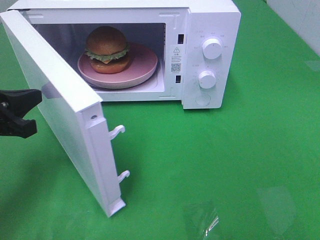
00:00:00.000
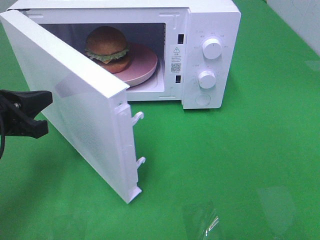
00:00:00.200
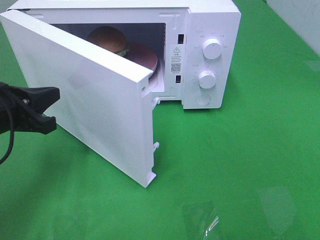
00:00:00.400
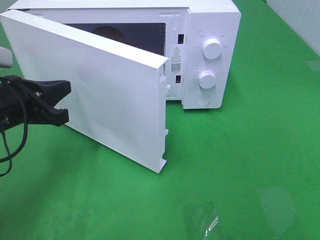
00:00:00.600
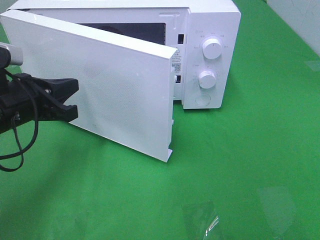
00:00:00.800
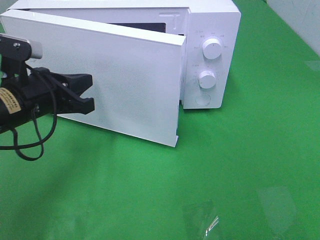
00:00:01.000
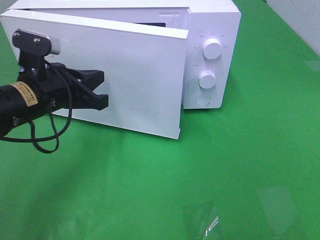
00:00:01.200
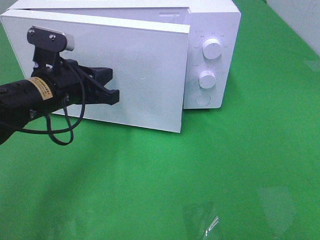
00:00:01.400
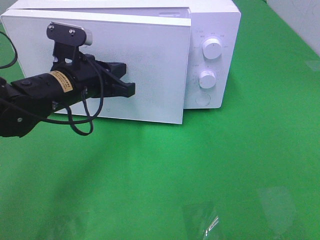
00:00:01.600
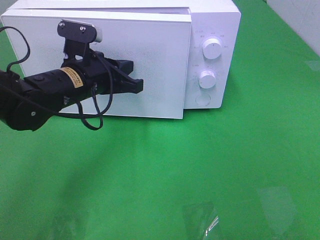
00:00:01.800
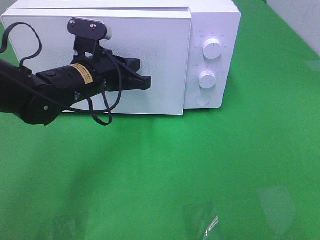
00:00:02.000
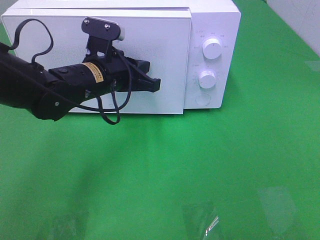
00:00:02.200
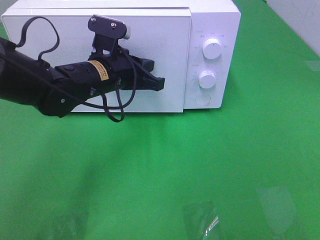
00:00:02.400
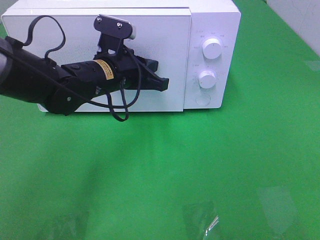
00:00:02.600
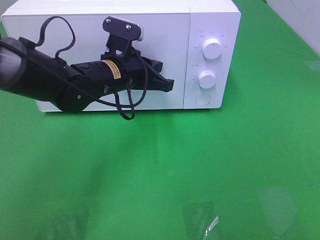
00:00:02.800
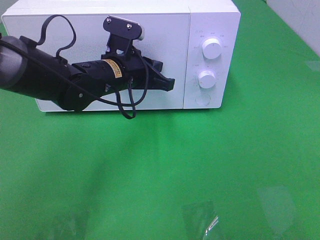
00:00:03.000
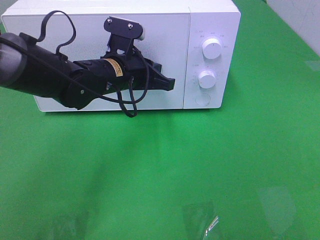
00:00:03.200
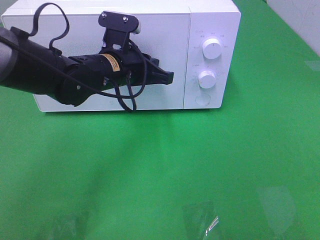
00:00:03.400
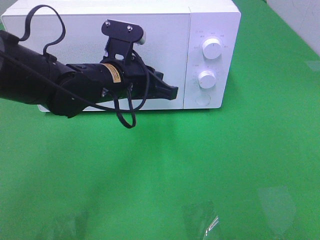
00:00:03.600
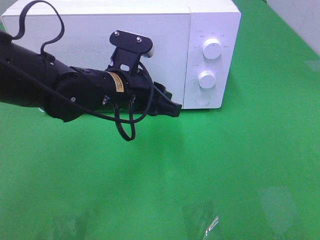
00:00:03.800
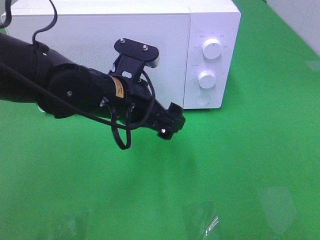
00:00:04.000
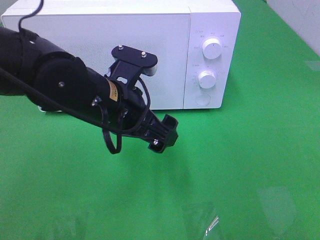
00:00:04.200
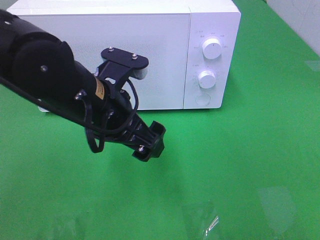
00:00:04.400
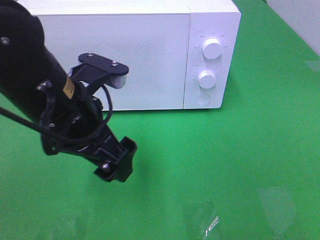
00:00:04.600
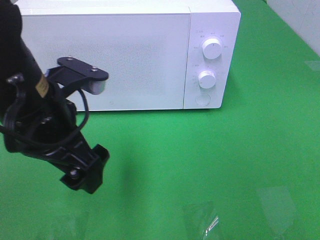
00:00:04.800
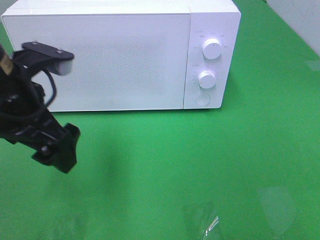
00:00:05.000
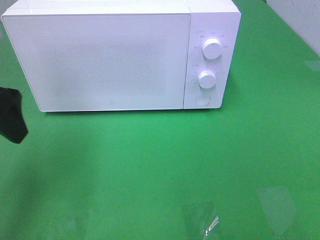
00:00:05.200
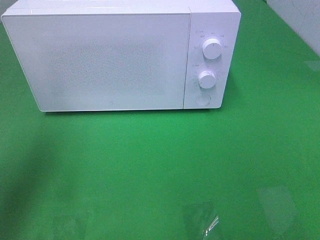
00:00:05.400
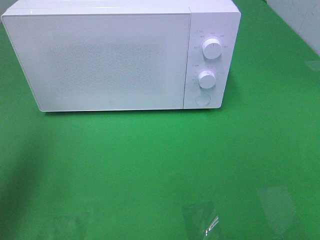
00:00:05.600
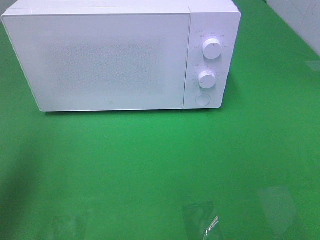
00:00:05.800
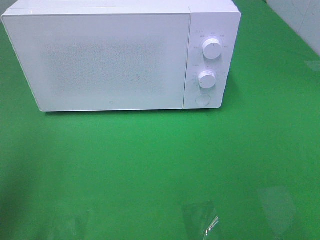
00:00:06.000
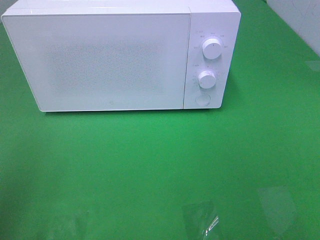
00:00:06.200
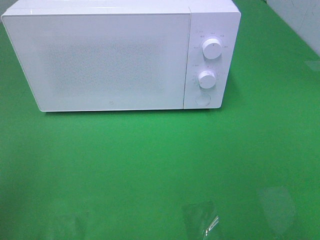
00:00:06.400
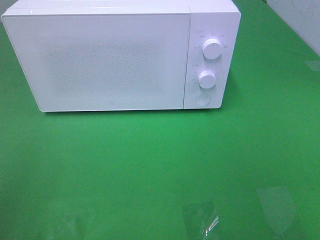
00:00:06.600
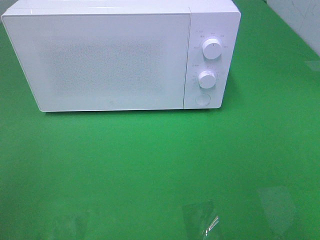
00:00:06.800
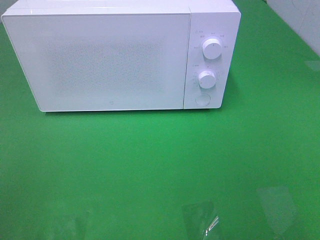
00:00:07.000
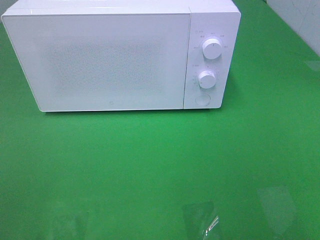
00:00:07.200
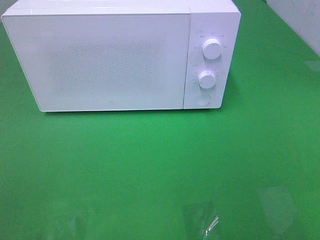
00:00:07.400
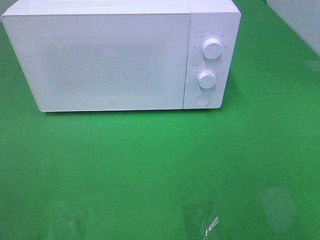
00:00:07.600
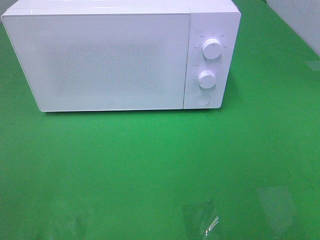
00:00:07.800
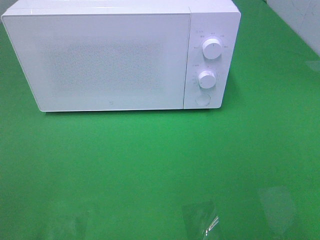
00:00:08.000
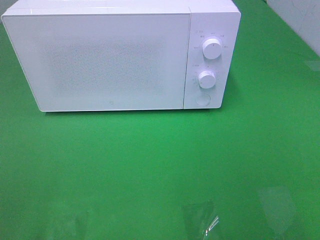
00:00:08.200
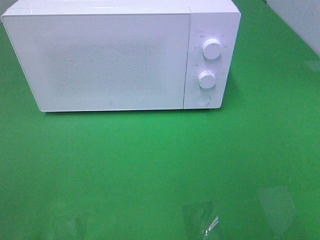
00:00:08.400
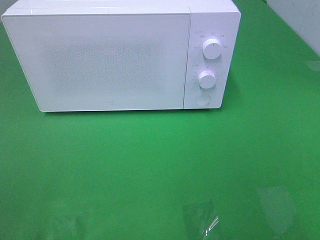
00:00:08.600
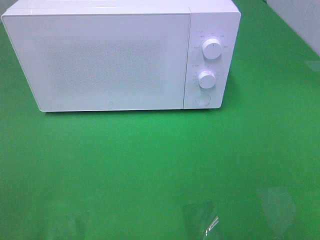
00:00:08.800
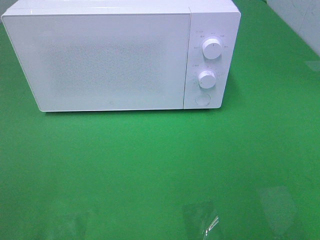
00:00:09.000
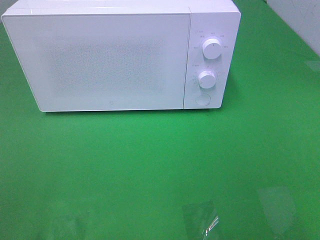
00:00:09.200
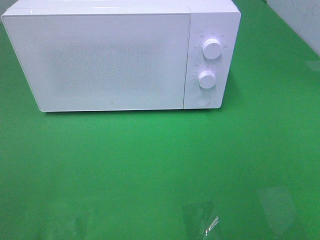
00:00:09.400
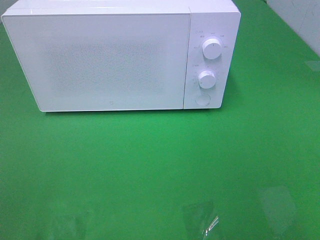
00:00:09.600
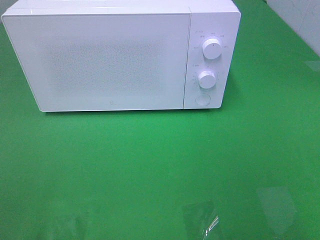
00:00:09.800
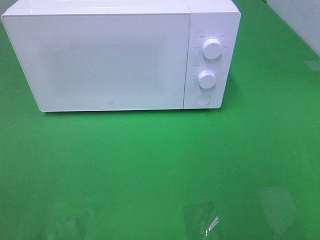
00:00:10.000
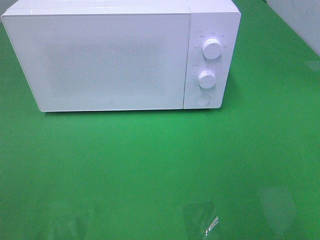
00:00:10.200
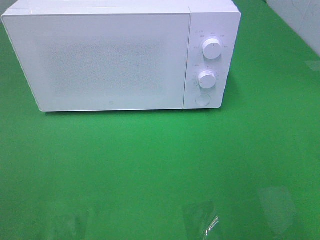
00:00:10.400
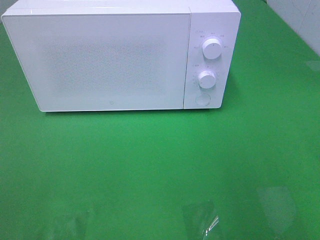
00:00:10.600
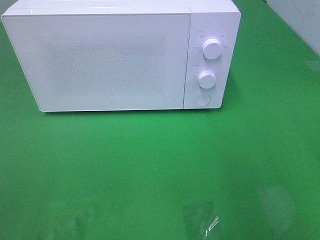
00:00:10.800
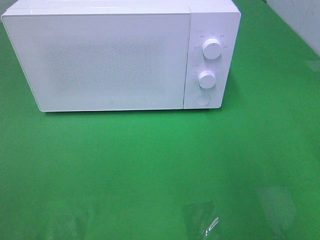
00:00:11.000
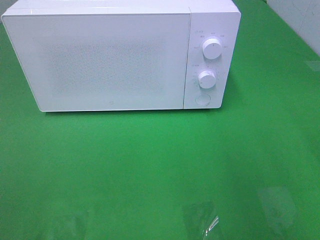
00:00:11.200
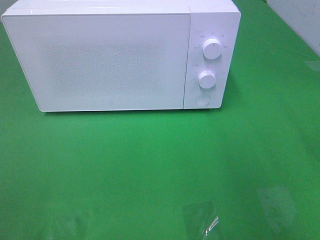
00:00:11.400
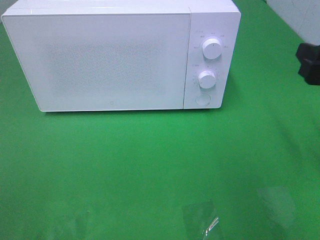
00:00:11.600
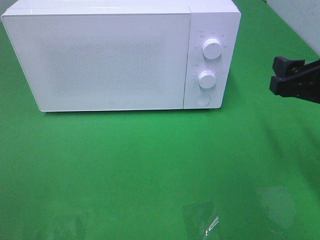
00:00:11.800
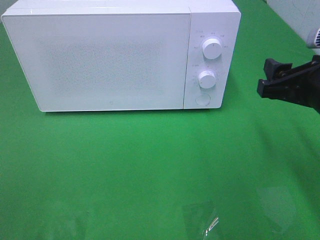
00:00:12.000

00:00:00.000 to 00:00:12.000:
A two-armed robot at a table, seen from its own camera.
Task of the whole recording: Heat the burger.
Step, 00:00:00.000 to 00:00:03.400: Left hand: close the microwave door.
00:00:00.000 to 00:00:01.600: The left gripper moves to the right and forward, some 15 cm.
00:00:01.600 to 00:00:03.000: The left gripper heads to the right, covering about 5 cm.
00:00:03.000 to 00:00:04.400: The left gripper goes some 10 cm backward, and opens up.
00:00:04.400 to 00:00:06.000: The left gripper moves to the left and backward, roughly 25 cm.
00:00:06.000 to 00:00:07.600: The left gripper is displaced backward by roughly 15 cm.
00:00:07.600 to 00:00:09.000: The two grippers keep their place.
00:00:10.400 to 00:00:12.000: The right gripper is displaced forward, downward and to the left by approximately 15 cm.

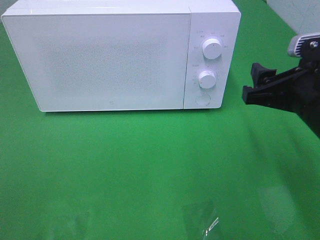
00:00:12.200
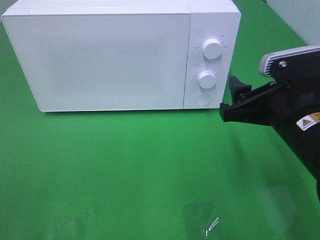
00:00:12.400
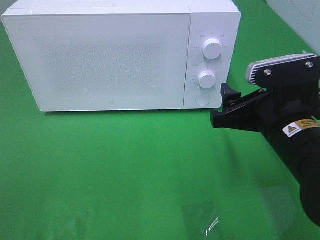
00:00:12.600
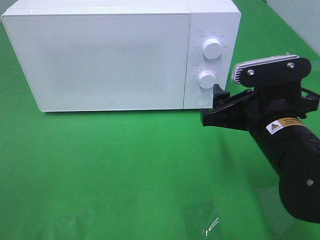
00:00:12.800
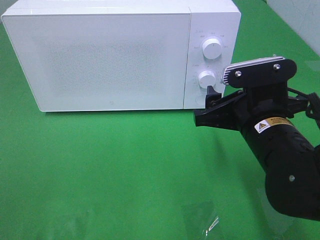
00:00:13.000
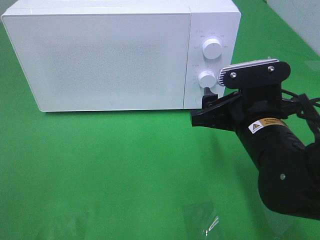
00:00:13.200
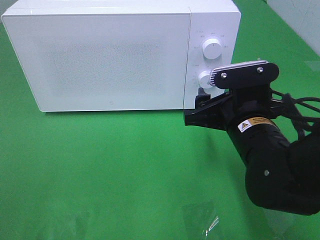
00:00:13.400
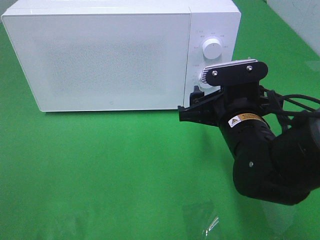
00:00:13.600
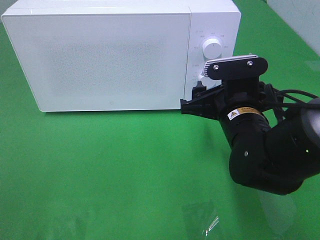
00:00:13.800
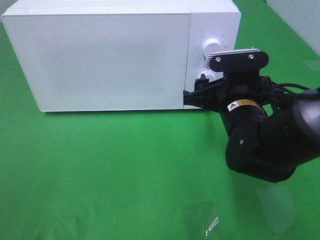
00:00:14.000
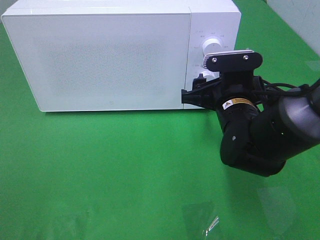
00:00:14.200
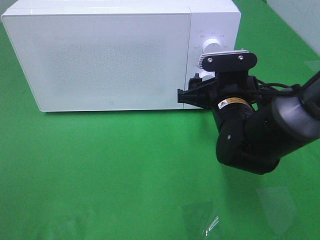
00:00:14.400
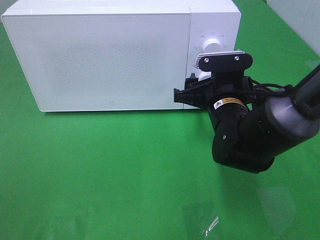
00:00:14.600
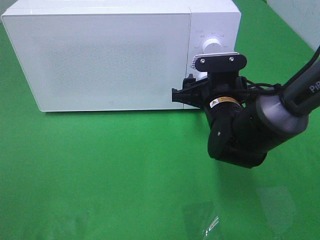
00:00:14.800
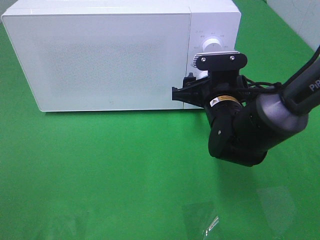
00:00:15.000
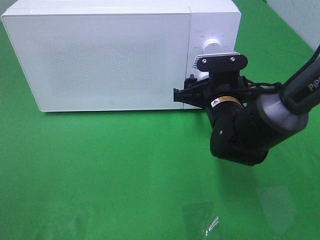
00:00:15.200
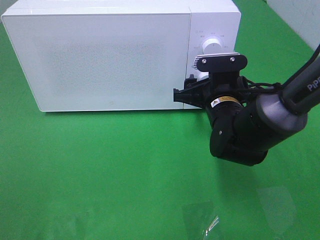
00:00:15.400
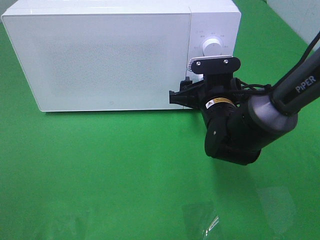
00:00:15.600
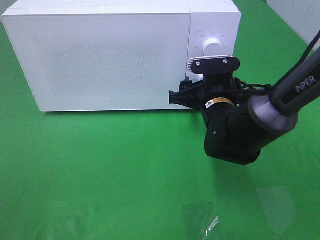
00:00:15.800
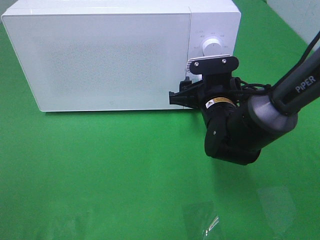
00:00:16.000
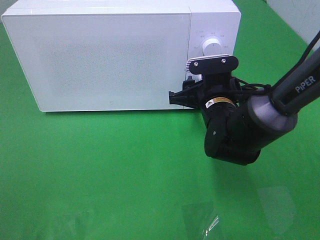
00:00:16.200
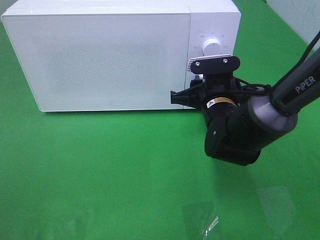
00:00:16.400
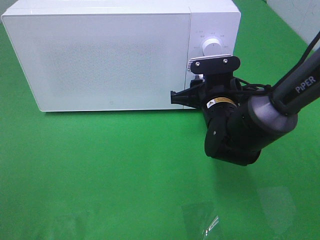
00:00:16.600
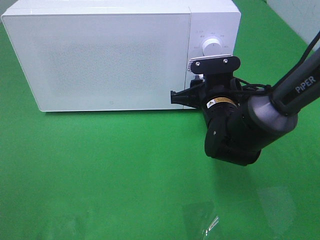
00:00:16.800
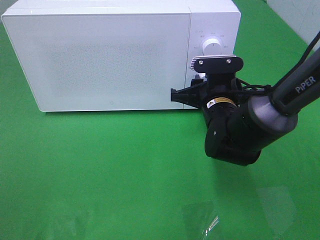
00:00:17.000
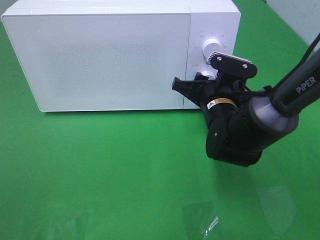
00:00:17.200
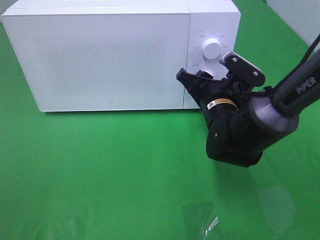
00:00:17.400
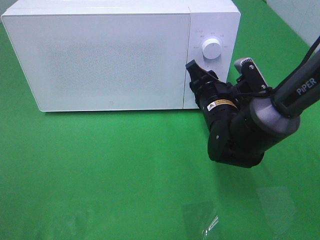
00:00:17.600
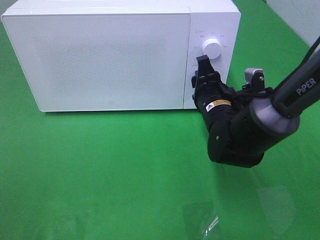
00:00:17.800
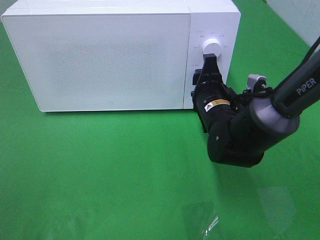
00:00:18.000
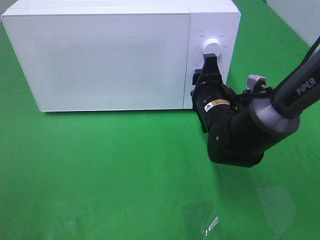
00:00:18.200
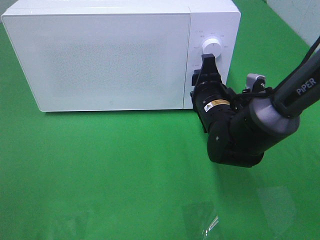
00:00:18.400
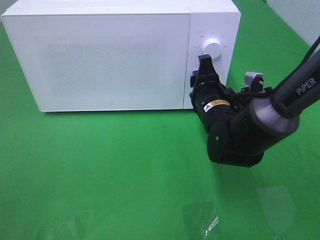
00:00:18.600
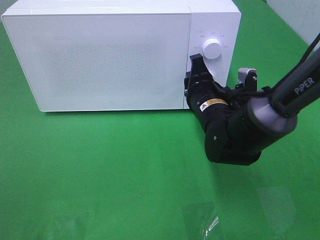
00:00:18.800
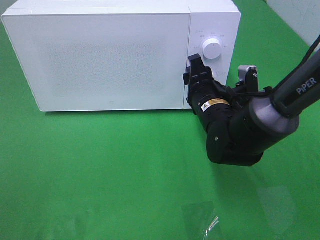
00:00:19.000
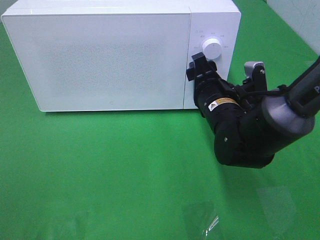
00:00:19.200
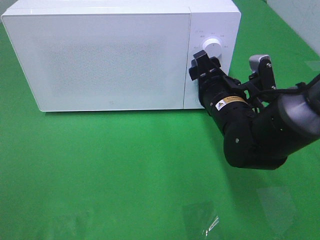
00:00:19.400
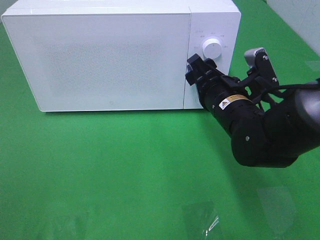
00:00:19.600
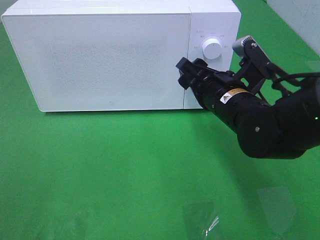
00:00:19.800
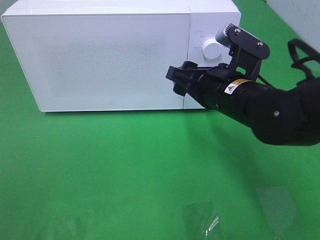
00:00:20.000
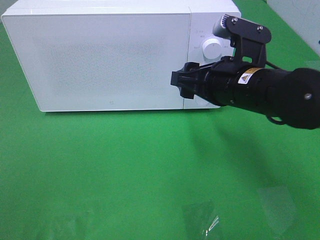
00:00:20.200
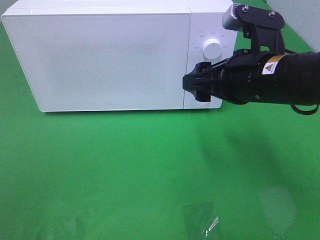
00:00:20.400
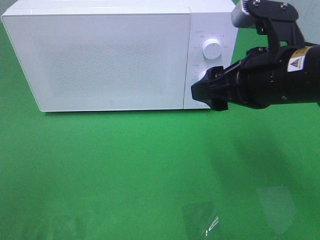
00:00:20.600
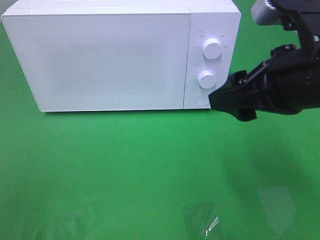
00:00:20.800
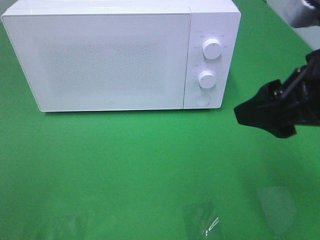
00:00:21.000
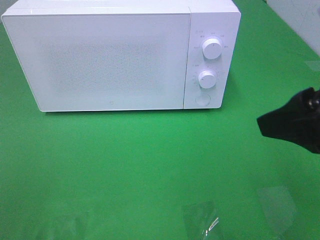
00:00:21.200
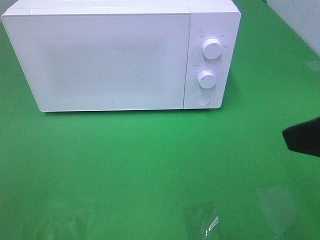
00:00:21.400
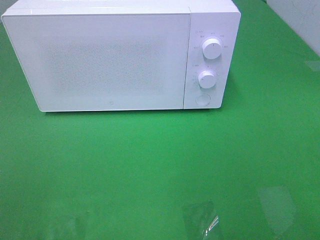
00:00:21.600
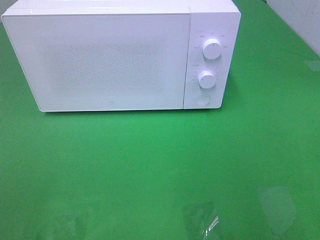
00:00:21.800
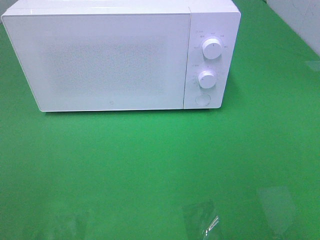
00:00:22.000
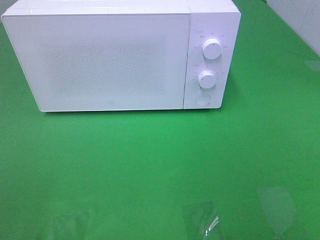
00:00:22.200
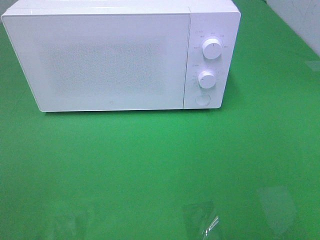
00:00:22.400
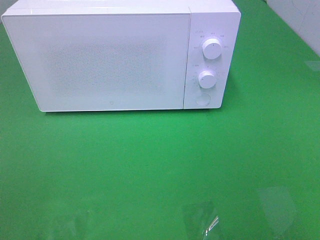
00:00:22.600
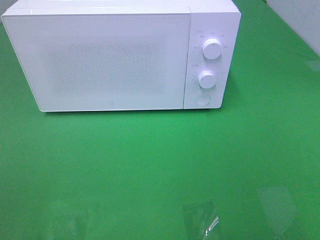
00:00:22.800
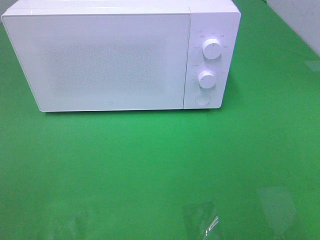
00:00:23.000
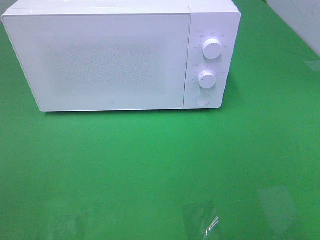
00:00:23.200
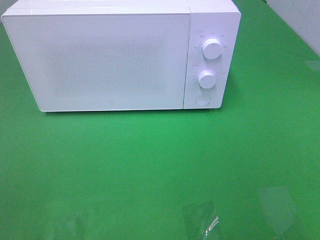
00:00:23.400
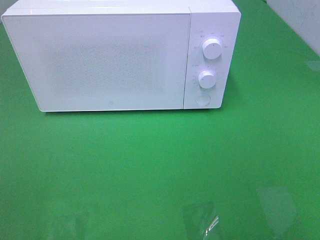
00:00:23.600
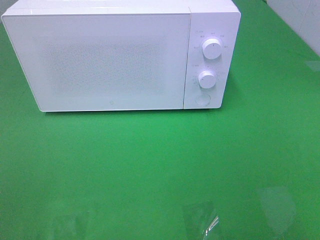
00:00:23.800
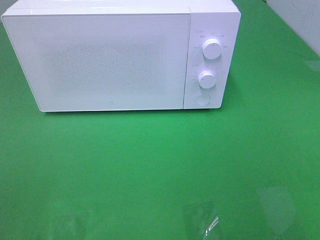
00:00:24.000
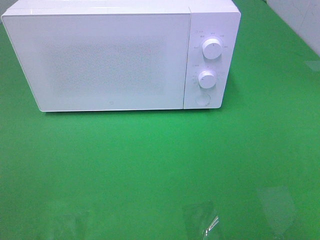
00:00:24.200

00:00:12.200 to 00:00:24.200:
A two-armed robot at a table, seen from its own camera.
Task of the whole recording: Heat the burger.
Step, 00:00:12.200 to 00:00:19.000: Right hand: twist timer button.
00:00:12.200 to 00:00:13.800: The right gripper is displaced to the left and downward by approximately 10 cm.
00:00:13.800 to 00:00:15.200: The right gripper is displaced forward by about 5 cm.
00:00:15.200 to 00:00:16.600: The right gripper closes up.
00:00:18.200 to 00:00:19.800: The right gripper moves approximately 5 cm.
00:00:19.800 to 00:00:21.200: The right gripper heads backward, upward and to the right, covering about 20 cm.
00:00:21.200 to 00:00:22.600: The right gripper moves backward and to the right, approximately 20 cm.
